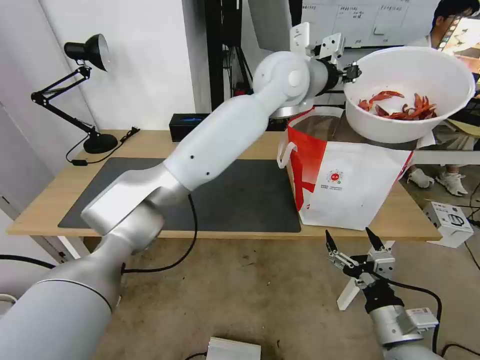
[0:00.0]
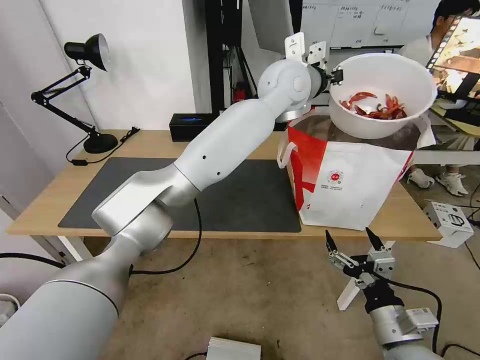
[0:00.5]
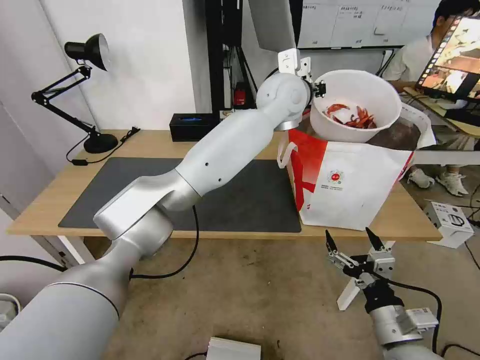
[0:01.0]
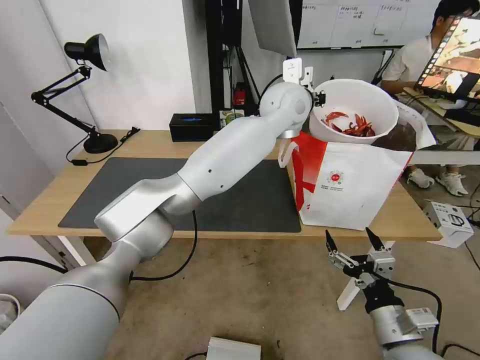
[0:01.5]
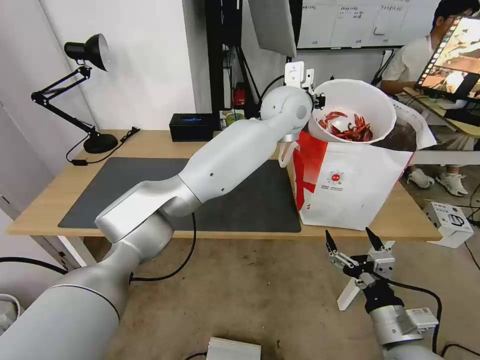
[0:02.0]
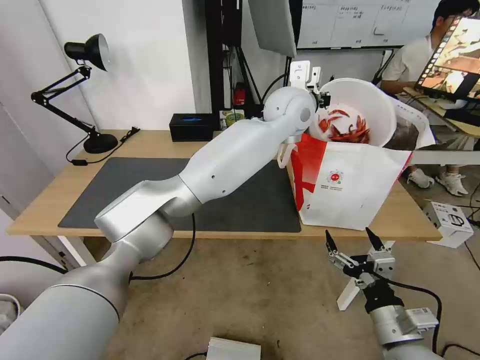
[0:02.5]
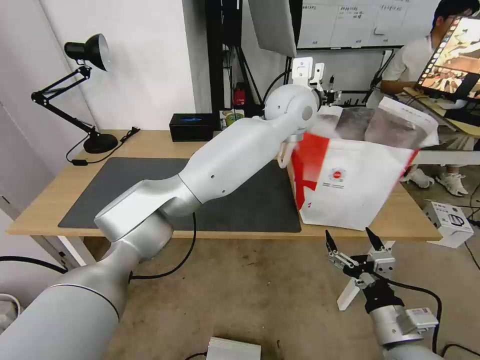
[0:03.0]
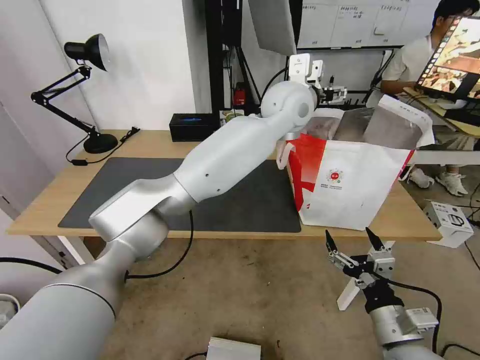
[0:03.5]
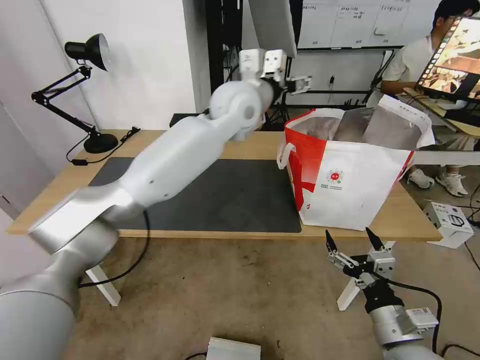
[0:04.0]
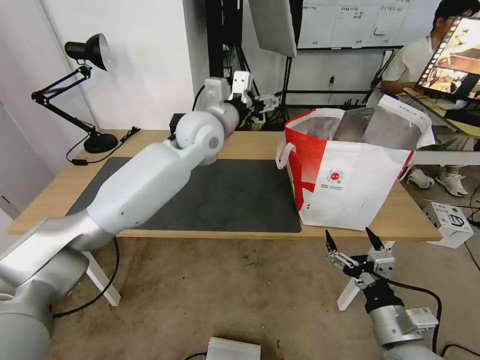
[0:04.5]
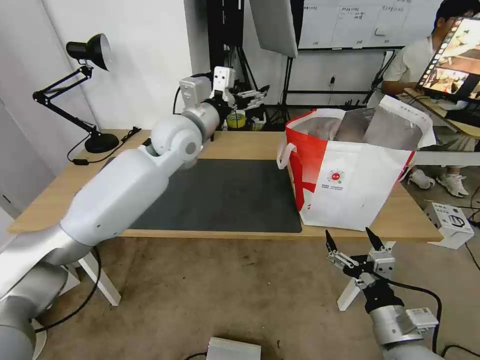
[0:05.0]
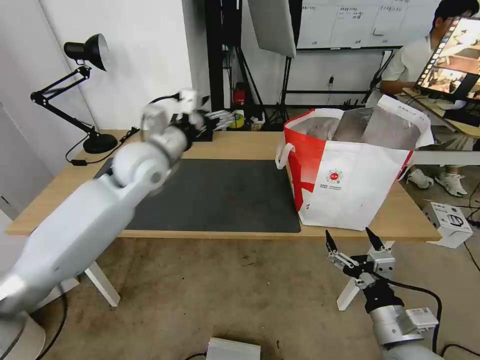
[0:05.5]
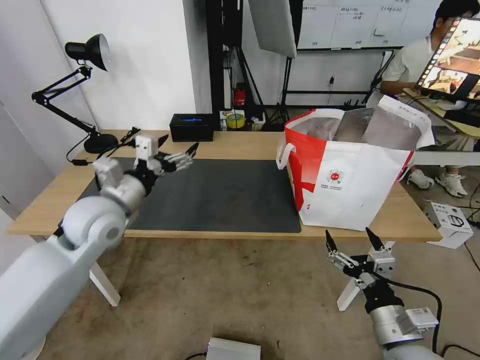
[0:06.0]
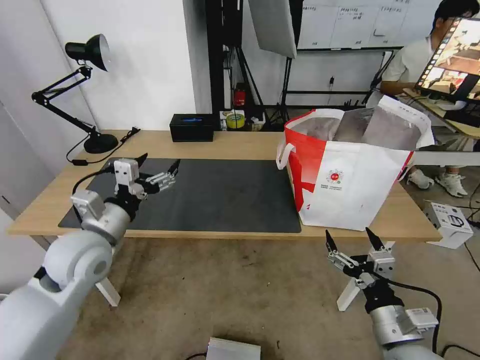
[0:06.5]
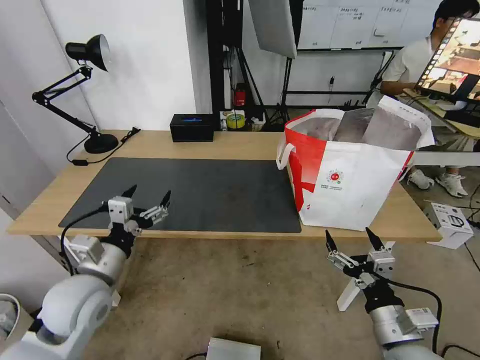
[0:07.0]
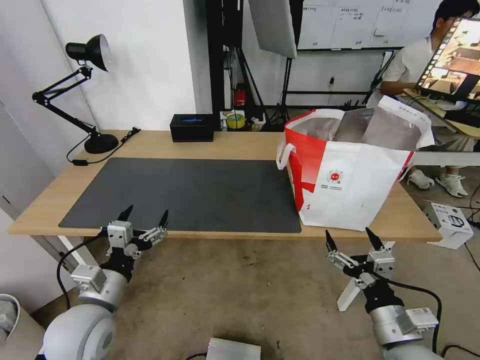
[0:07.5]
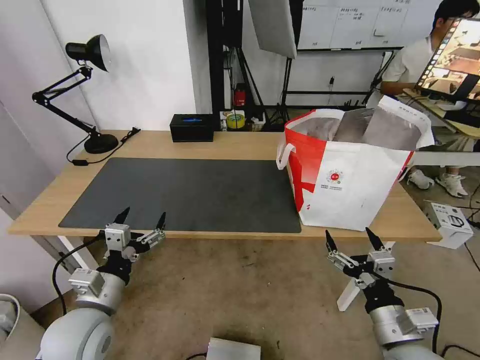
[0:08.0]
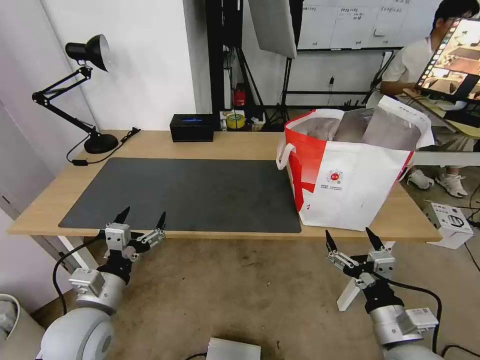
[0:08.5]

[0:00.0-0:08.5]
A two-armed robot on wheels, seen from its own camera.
Task of the whole recording: Pick up the trash from the table and place it into the takeout bag.
0:00.0 to 0:02.0: The left gripper goes some 5 cm downward.
0:02.0 to 0:04.0: The left gripper is displaced to the left by roughly 10 cm, and opens.
0:04.0 to 0:06.5: The left gripper travels to the left, backward and downward by some 40 cm.
0:06.5 to 0:08.5: The left gripper is displaced backward and downward by approximately 15 cm.
